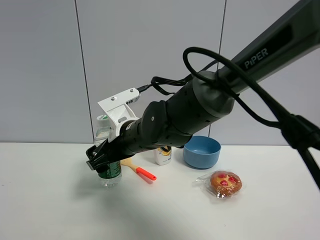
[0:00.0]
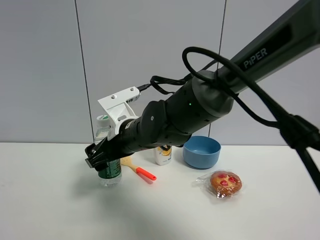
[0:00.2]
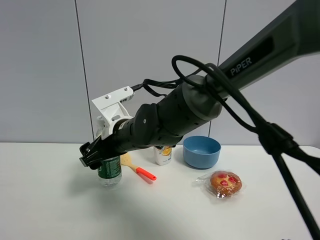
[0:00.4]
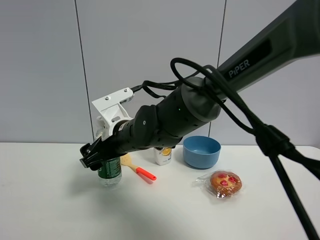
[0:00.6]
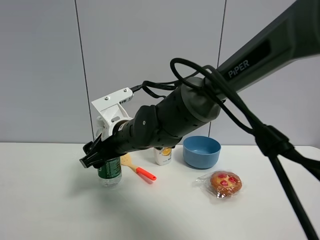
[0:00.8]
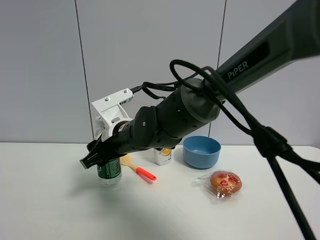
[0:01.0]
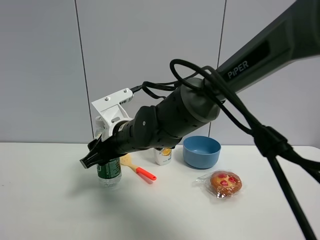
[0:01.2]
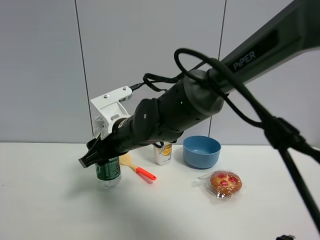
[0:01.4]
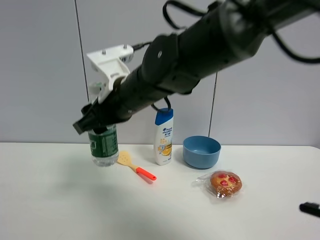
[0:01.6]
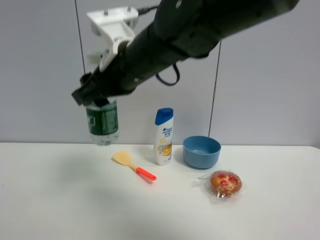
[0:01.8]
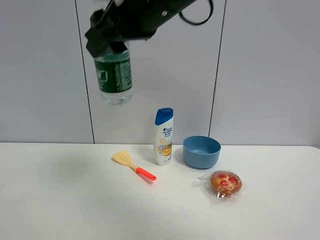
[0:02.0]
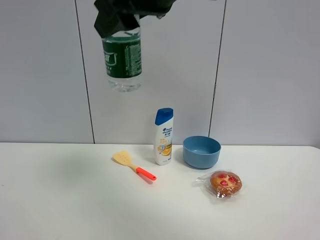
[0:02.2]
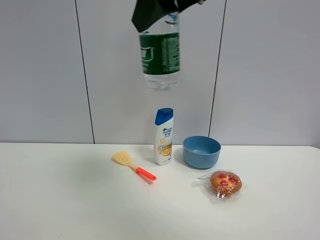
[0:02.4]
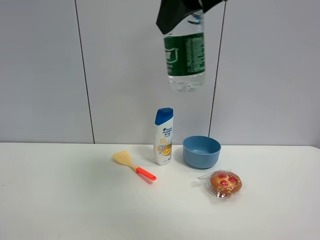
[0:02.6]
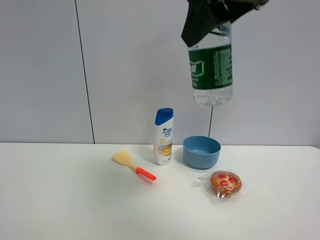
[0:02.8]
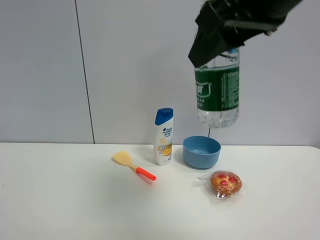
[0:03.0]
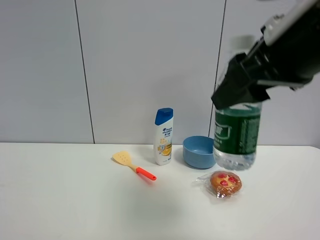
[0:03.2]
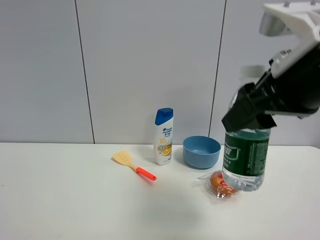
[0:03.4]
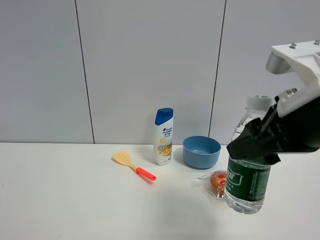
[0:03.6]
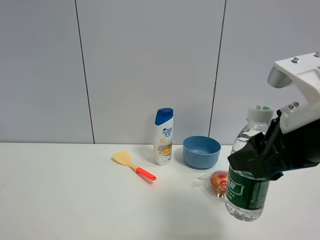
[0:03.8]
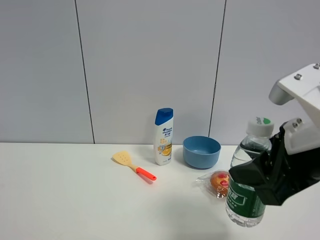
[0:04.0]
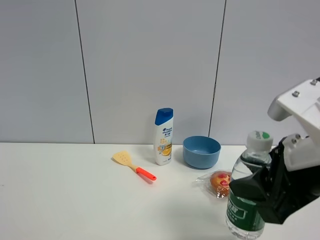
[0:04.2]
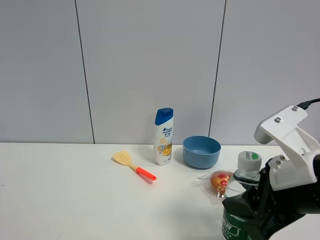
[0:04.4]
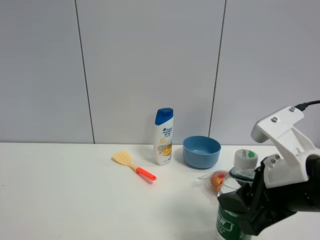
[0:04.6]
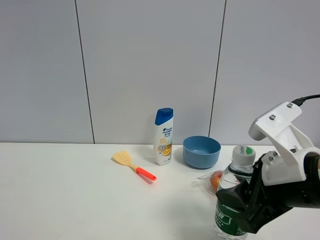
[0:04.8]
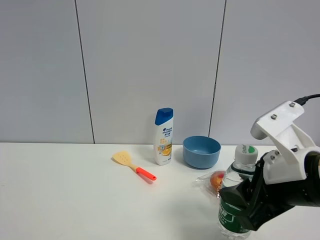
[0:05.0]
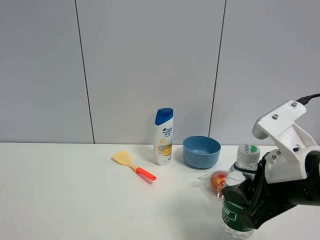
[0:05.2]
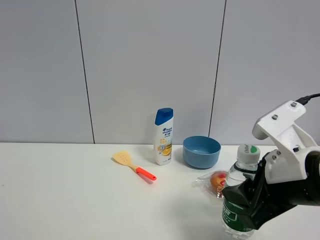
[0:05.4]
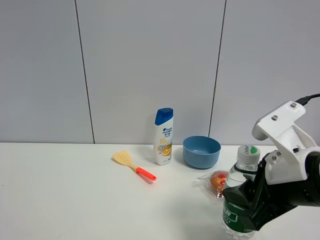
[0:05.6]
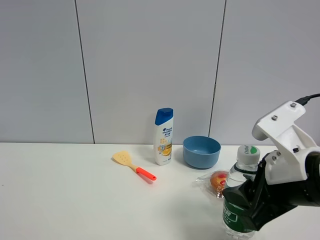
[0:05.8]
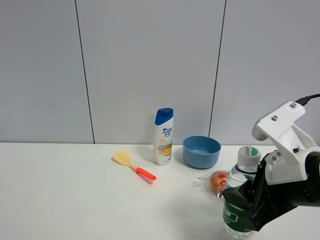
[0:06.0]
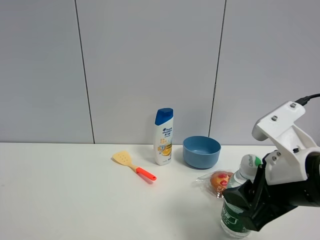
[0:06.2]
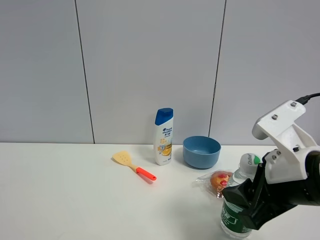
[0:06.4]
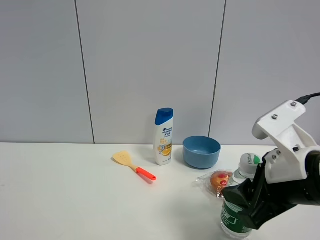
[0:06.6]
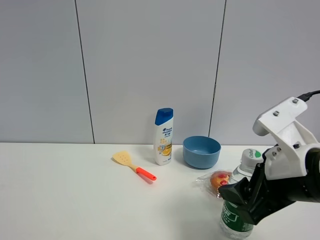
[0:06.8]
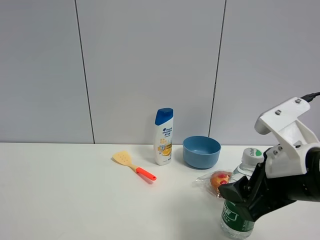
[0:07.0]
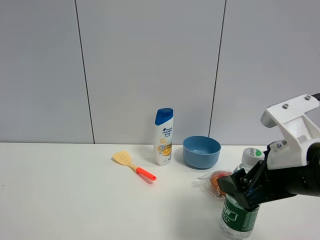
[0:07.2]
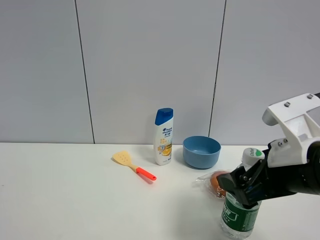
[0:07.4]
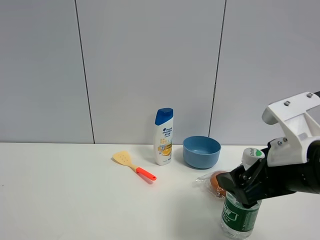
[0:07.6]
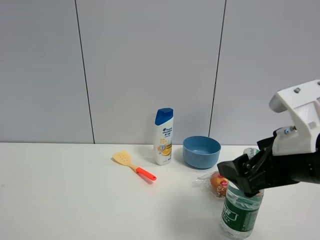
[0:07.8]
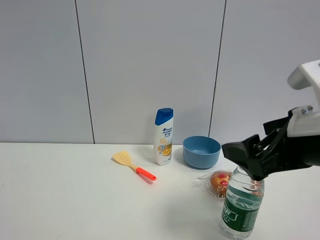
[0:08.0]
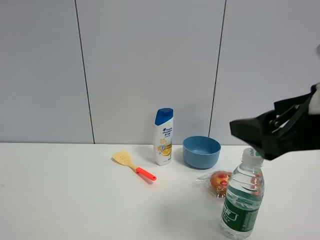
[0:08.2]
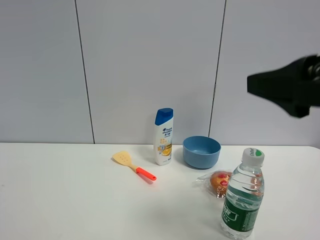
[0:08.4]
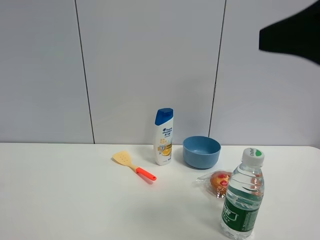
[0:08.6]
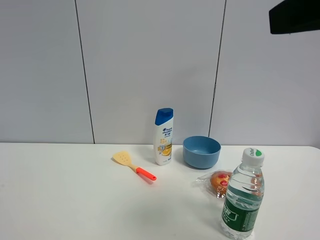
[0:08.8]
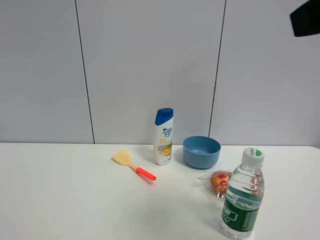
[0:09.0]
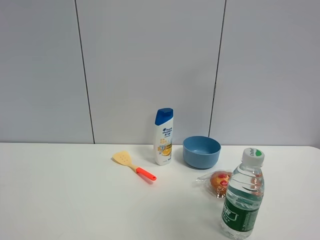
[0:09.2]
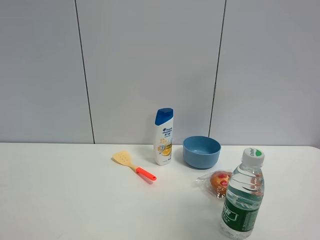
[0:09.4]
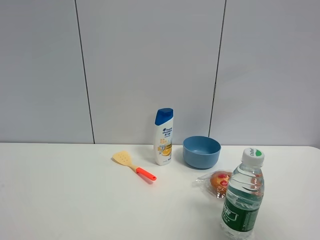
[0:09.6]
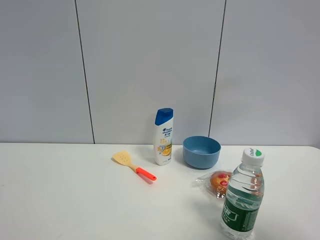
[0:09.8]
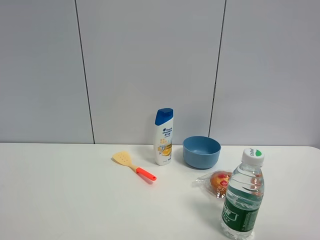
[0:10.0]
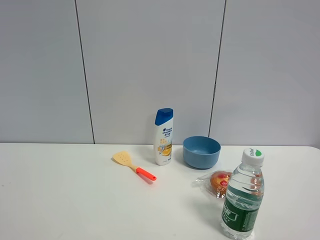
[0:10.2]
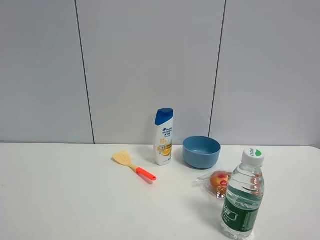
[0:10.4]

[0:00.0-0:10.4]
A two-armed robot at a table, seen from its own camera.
Task of the whole recording: the gripper move the object.
Step, 0:01.2 to 0:08.2: Place the YiBao mineral water on the table with the right gripper.
0:00.0 to 0:01.4: The right gripper closes.
0:01.4 to 0:03.0: The right gripper goes approximately 30 cm upward, to the right and backward.
0:03.0 to 0:04.4: The right gripper heads downward, covering roughly 20 cm.
0:04.4 to 0:06.0: The grippers stay close to where they were, moving slightly.
0:06.0 to 0:07.4: The right gripper opens its fingers.
0:07.4 to 0:09.0: The right gripper travels upward by some 20 cm.
0:09.0 to 0:10.4: The right gripper goes about 20 cm backward, to the right and downward.

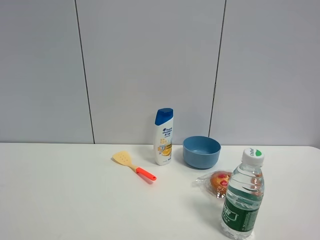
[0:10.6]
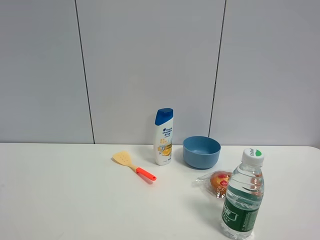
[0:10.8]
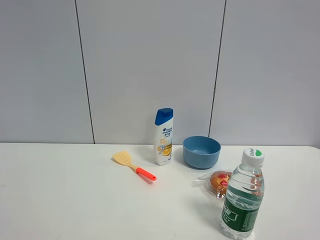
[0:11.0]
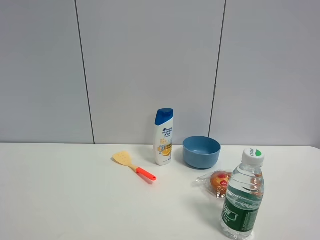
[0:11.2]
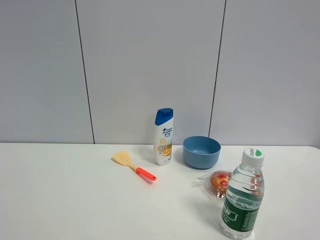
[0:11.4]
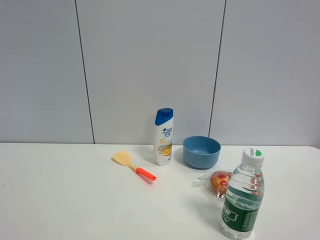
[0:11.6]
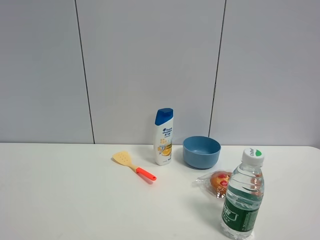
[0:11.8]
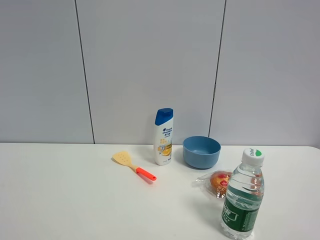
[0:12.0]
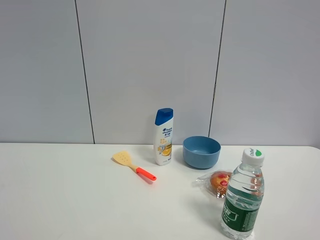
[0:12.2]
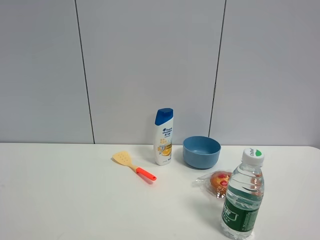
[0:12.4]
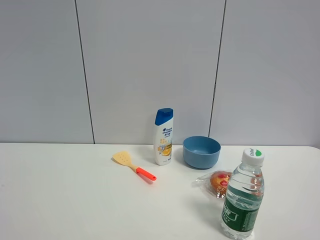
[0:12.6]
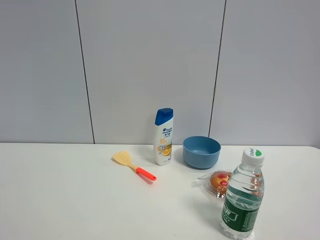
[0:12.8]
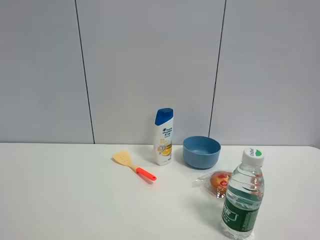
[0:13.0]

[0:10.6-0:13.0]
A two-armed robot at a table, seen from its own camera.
Task of the whole recording: the gripper move the object.
0:11.8 to 0:13.0: Both grippers stay put.

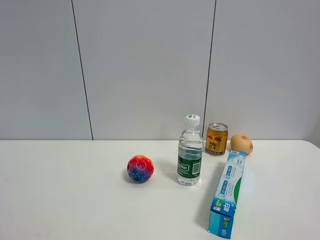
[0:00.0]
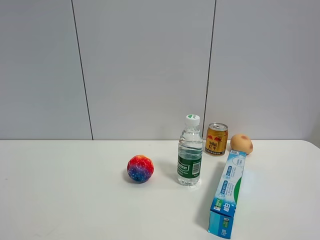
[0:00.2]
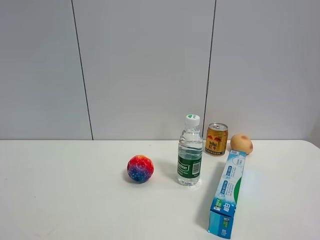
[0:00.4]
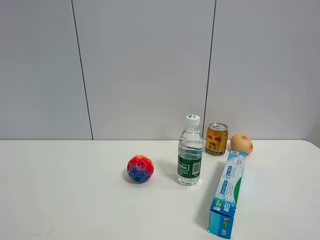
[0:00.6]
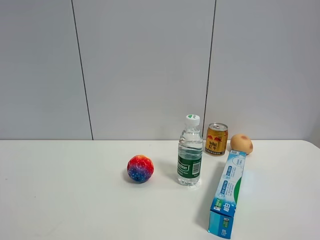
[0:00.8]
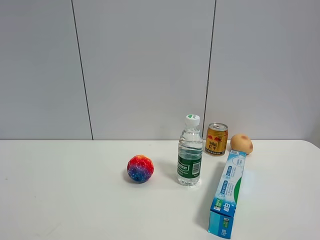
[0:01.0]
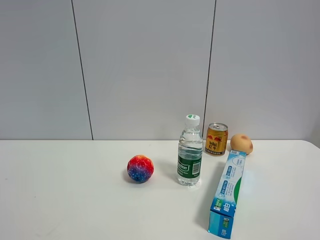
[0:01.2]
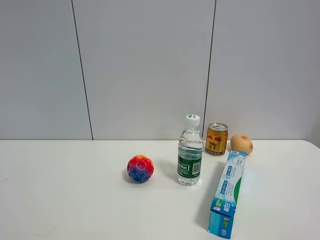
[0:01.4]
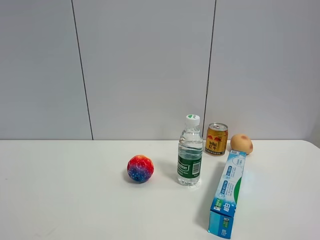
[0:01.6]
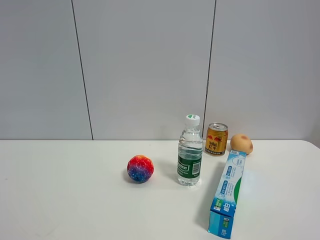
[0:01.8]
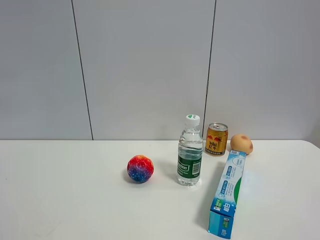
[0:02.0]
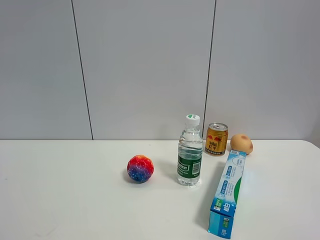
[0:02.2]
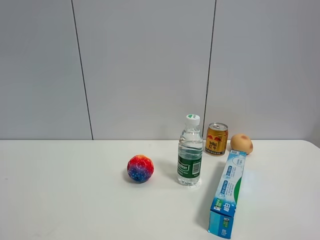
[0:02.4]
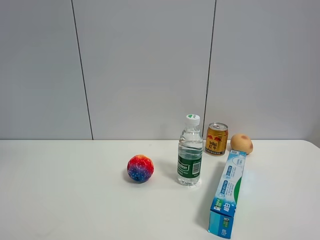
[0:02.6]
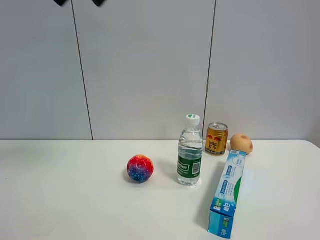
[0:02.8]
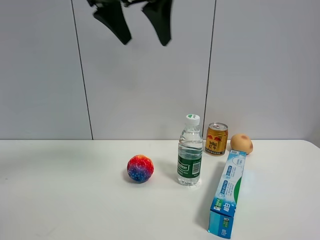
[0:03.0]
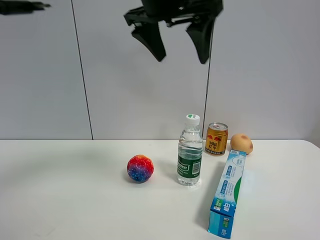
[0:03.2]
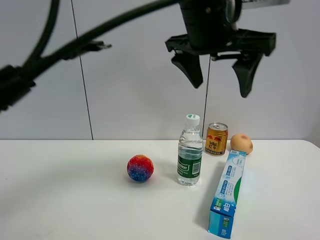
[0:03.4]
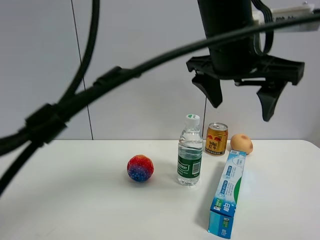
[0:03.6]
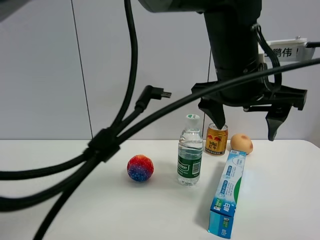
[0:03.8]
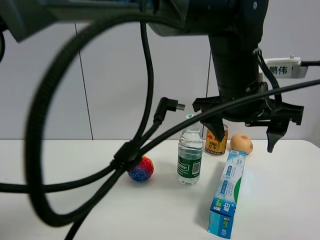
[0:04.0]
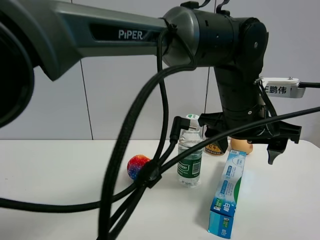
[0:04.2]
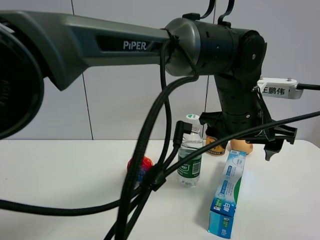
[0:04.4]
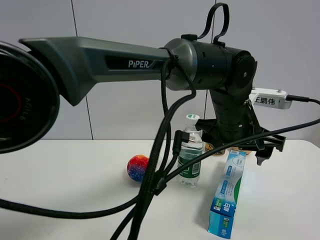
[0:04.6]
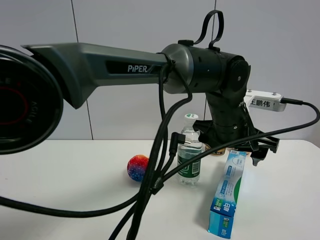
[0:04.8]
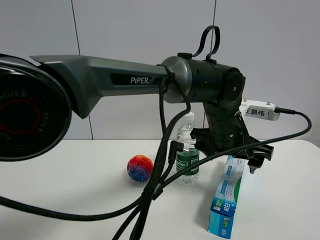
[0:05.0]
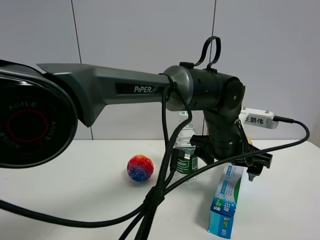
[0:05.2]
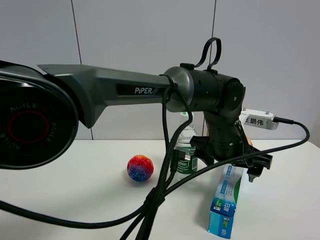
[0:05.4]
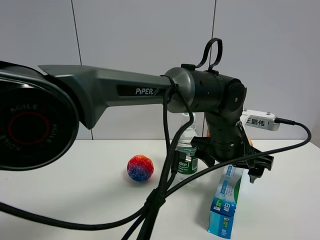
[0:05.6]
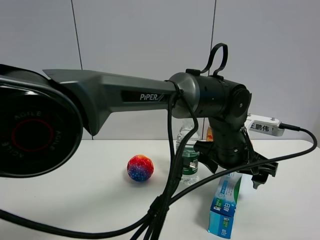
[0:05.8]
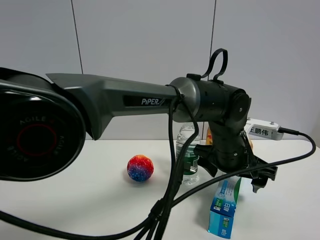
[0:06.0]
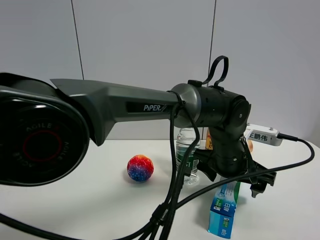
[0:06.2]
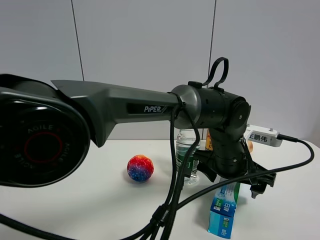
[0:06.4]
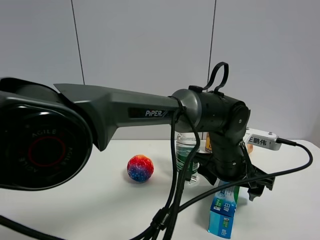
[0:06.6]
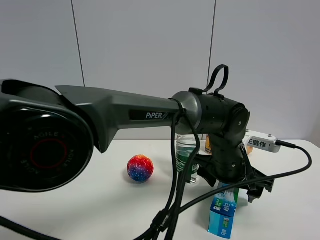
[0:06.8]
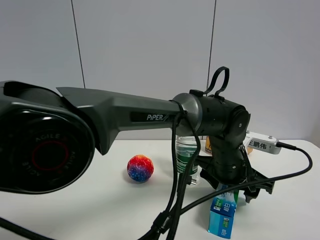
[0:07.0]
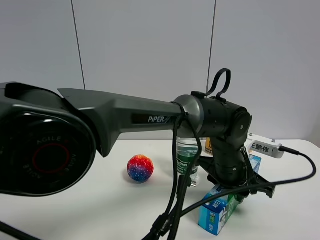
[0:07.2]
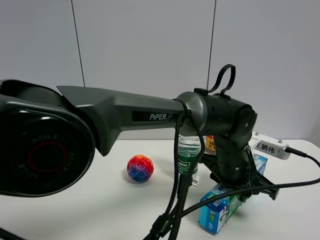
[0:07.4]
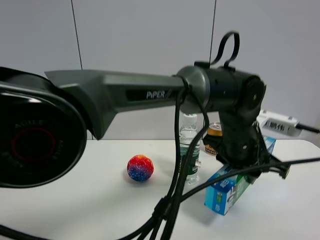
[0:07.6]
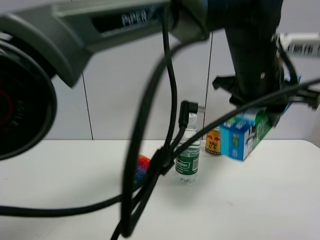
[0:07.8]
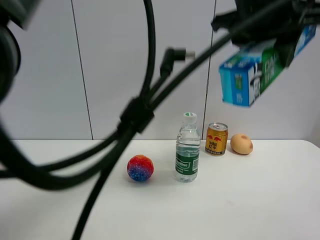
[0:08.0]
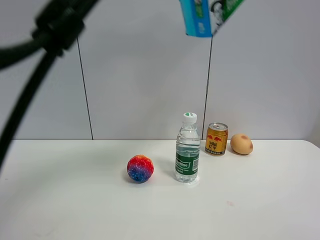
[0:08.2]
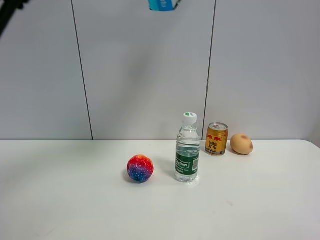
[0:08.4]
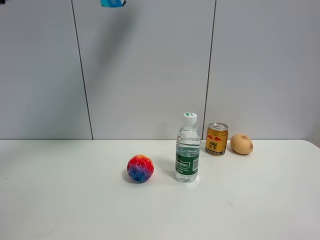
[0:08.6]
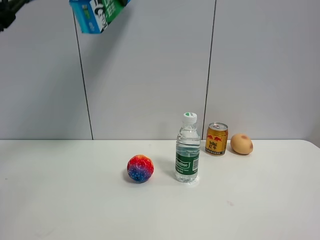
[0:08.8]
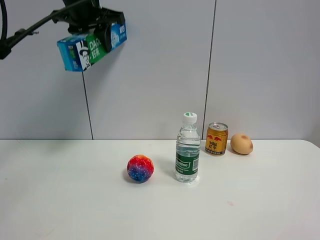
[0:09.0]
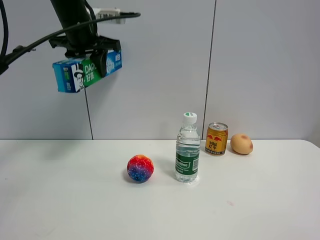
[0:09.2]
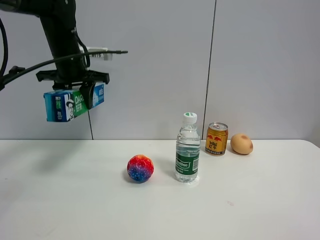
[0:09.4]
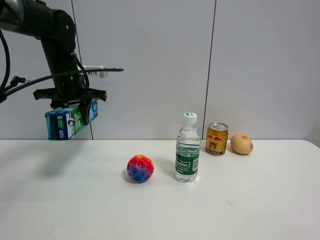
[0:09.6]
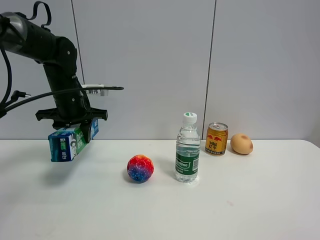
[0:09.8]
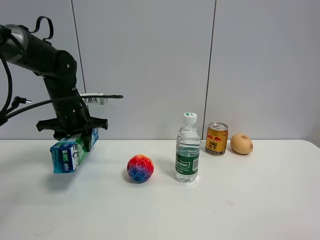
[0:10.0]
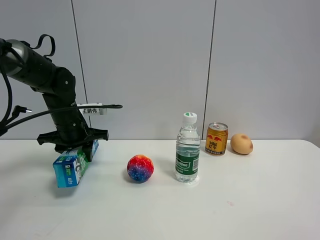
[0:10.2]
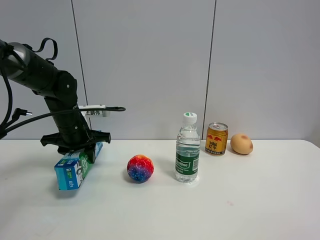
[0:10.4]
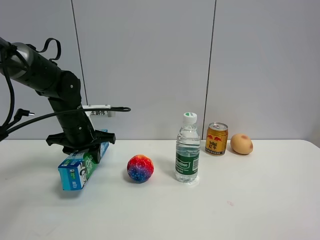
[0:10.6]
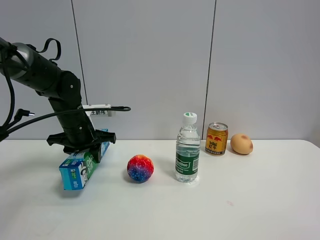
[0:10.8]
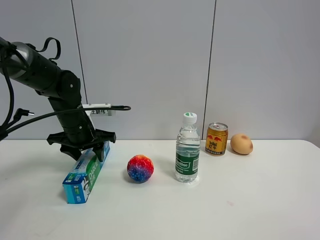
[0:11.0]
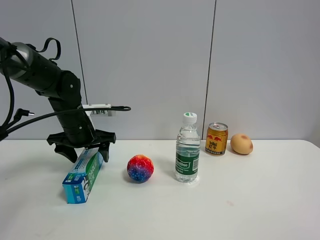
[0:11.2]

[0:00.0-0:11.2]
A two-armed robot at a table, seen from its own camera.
Task of the whole recording: the gripper move the object.
Step, 0:00.0 to 0:07.2: Grasp the toothpaste with the left gripper.
0:01.6 to 0:03.2: The left gripper goes roughly 50 cm to the right and forward.
0:03.2 to 0:04.8: The left gripper shifts roughly 25 cm downward and to the right.
0:04.8 to 0:06.4: The left gripper travels downward by about 5 cm.
0:06.4 to 0:08.0: The left gripper goes roughly 25 cm upward, and closes up.
0:08.0 to 0:09.6: The left gripper moves to the left, forward and downward, approximately 40 cm.
0:09.6 to 0:11.2: The left gripper is displaced downward by roughly 10 cm, and opens up.
